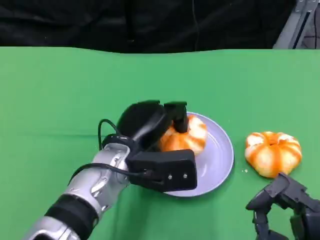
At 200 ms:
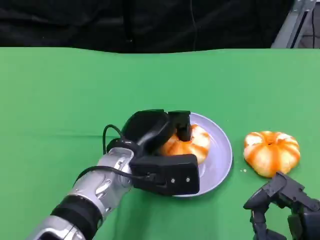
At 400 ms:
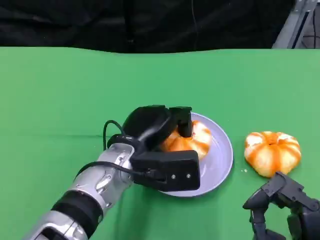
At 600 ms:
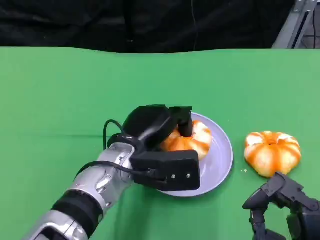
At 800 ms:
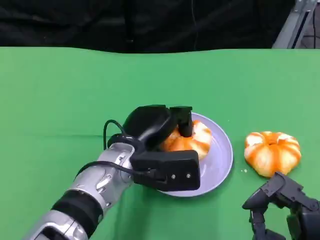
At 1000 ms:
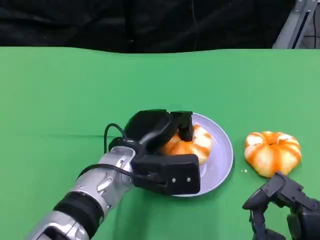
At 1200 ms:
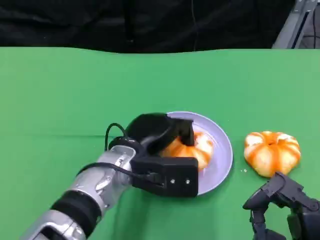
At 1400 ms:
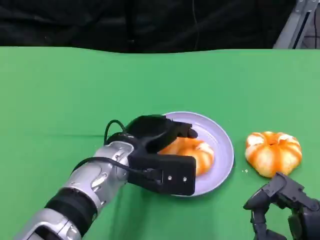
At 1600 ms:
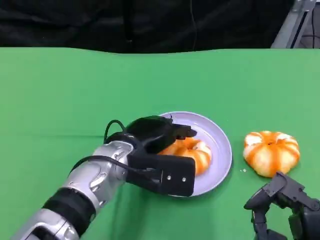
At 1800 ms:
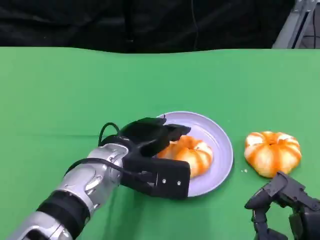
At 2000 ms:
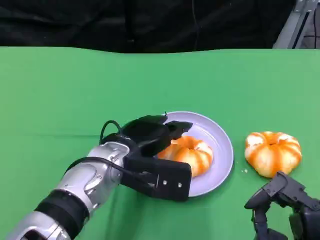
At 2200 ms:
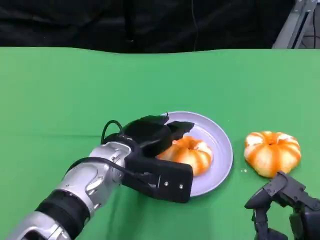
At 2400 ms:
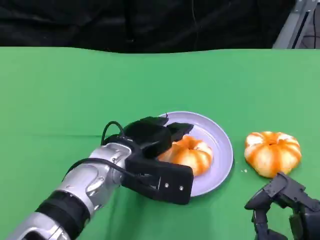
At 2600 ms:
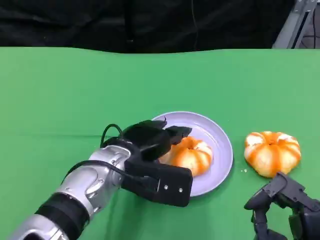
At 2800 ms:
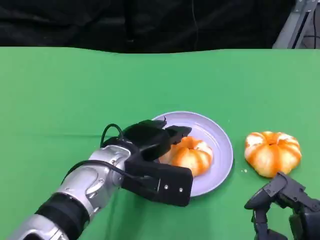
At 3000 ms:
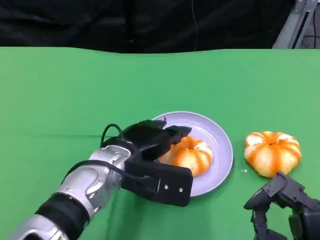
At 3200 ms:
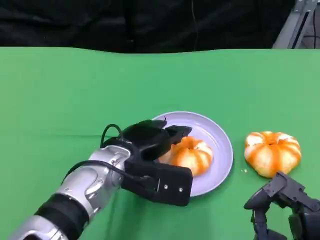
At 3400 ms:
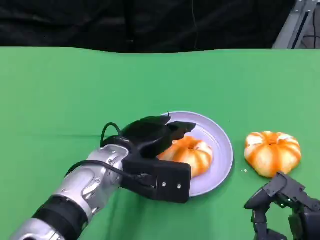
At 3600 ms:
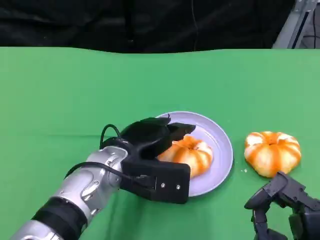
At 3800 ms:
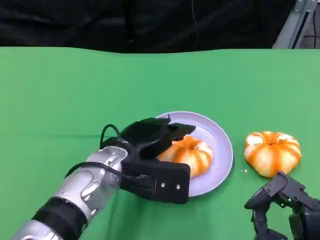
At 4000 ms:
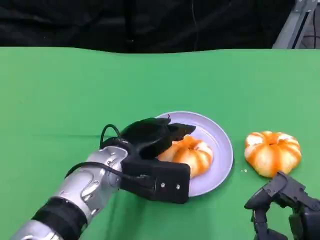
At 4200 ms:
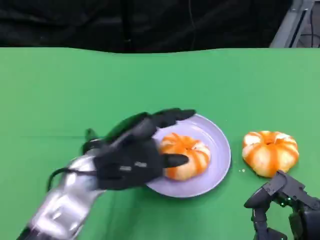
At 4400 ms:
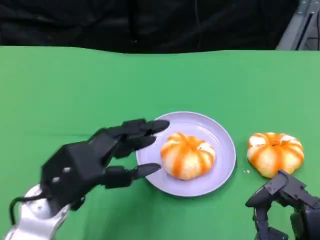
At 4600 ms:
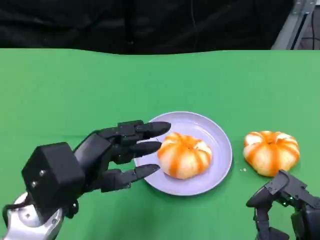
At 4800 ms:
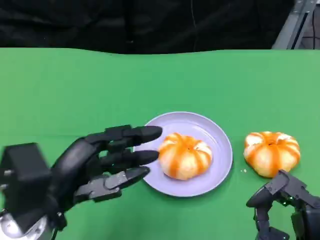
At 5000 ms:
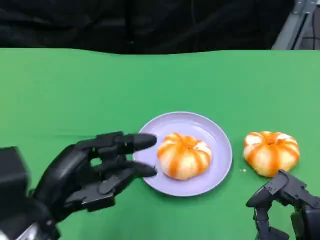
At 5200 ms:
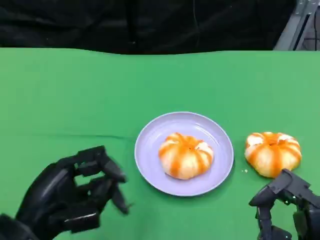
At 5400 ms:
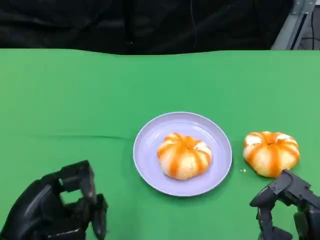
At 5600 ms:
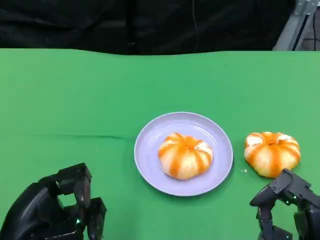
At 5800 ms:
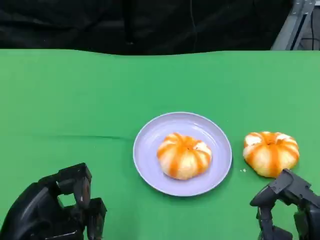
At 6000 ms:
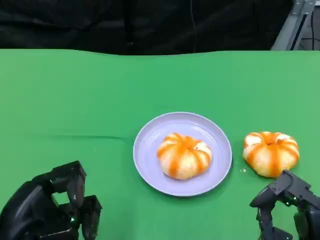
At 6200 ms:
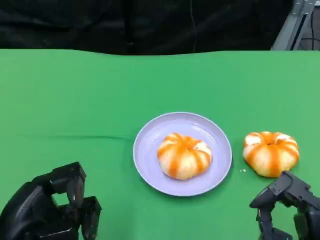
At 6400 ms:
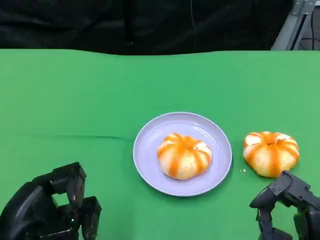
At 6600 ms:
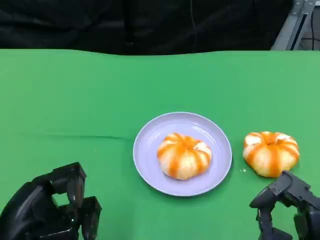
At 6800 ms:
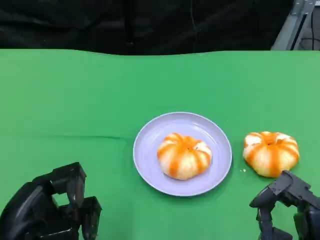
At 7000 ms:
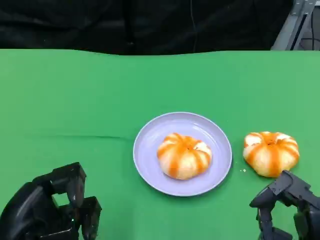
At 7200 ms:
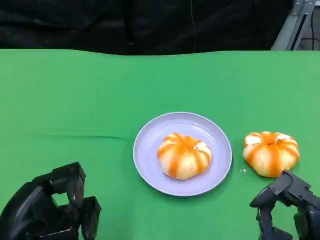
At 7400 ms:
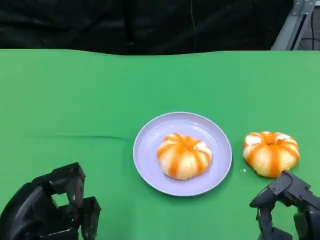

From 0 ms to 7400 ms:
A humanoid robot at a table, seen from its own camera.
Task of the whole recording: Grasp the bread from the table and place it into the plate.
From 0 ms to 1400 ms: The hands stay close to where they were, moving slightly.
From 1400 ms to 3000 ms: There are only small adjustments of the hands.
From 3000 ms to 4400 ms: The left hand heads to the left and backward, covering roughly 10 cm.
From 4400 ms to 6000 ms: The left hand shifts roughly 10 cm backward and to the left.
From 6000 ms to 7400 ms: Neither hand changes place.

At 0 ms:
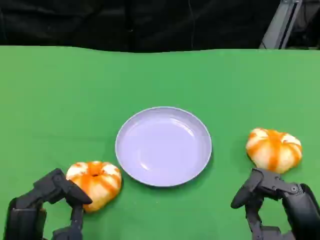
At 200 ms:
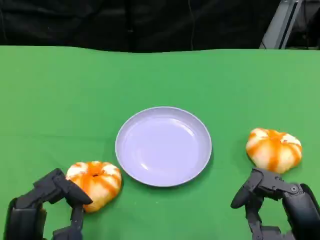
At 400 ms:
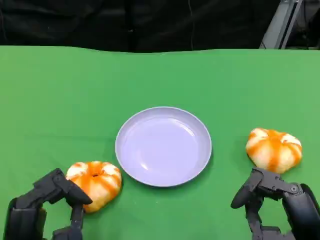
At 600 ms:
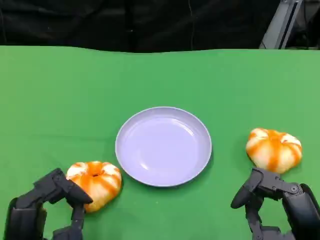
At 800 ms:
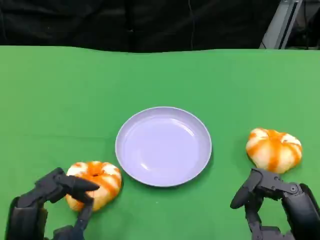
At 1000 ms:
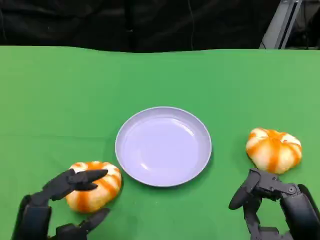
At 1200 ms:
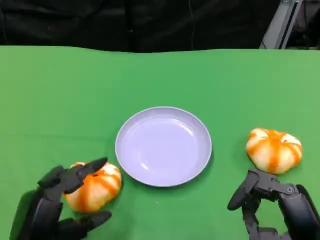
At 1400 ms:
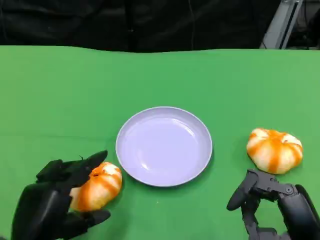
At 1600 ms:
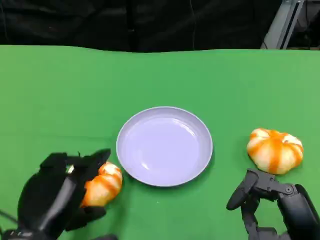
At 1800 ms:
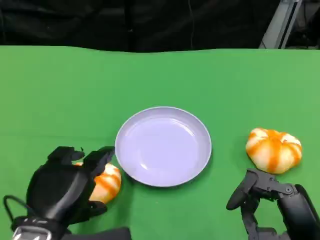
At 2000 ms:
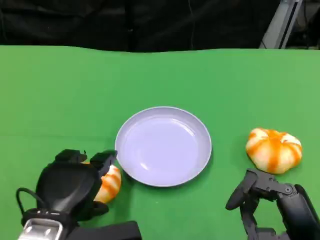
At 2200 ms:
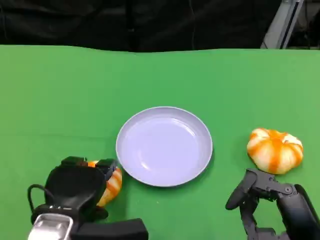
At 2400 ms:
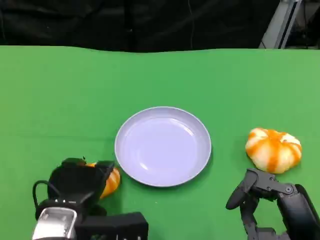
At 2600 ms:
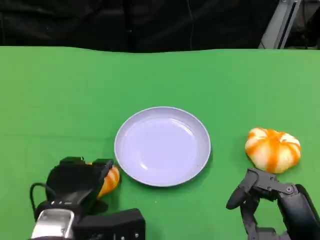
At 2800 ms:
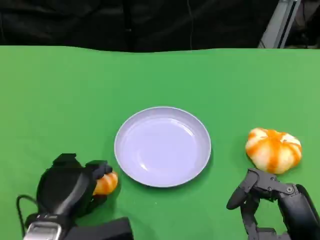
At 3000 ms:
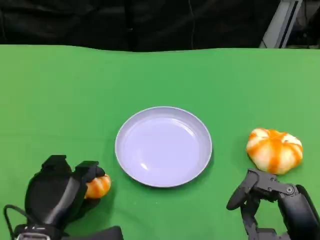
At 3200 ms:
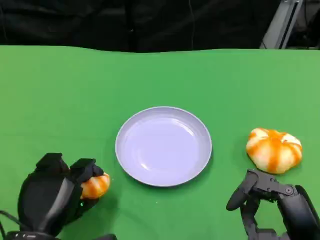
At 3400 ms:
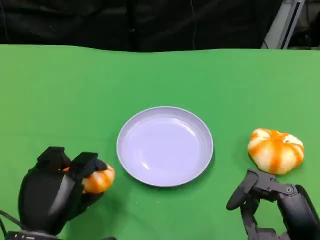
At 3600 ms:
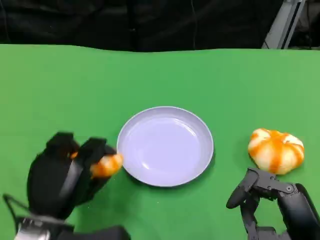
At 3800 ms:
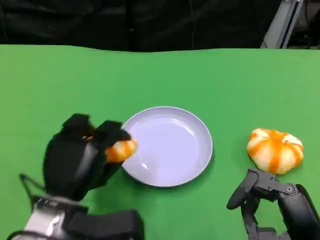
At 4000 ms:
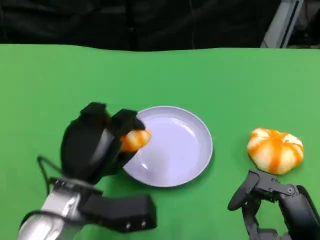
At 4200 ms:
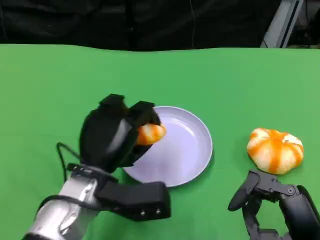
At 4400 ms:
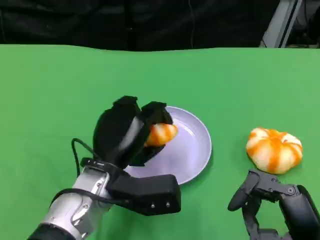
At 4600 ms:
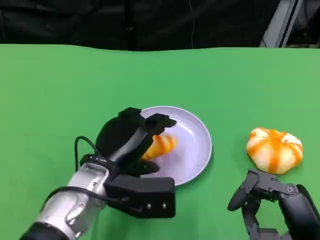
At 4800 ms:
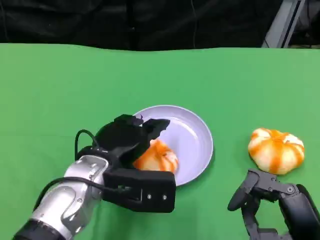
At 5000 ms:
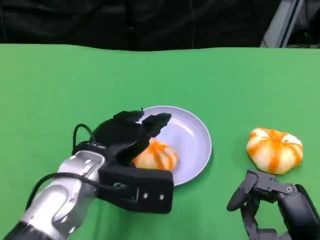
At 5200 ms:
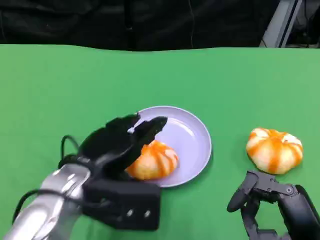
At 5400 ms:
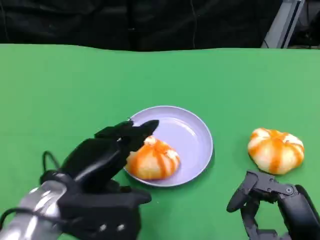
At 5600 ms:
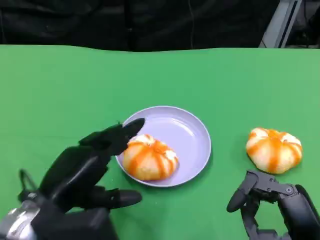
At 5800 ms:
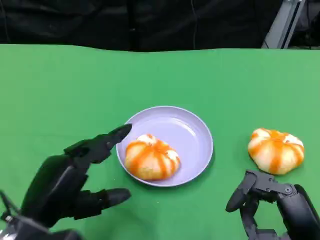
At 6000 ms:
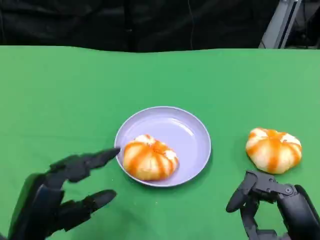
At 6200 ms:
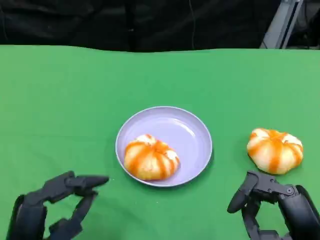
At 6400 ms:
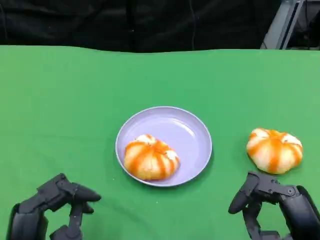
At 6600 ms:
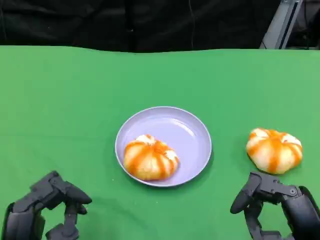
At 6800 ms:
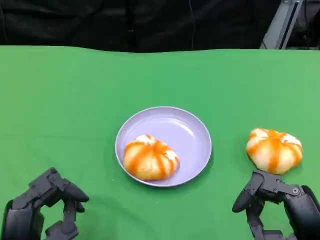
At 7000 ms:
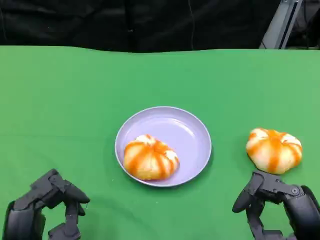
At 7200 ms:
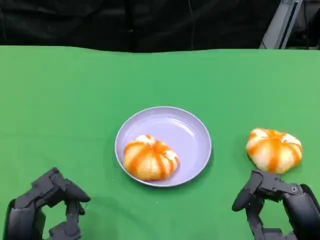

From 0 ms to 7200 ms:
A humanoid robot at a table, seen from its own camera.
Task of the whole recording: Grasp the bread from the table and place it into the plate.
From 1400 ms to 2800 ms: The left hand shifts by some 5 cm.
From 2800 ms to 4400 ms: The left hand heads to the right and forward, covering approximately 10 cm.
From 4400 ms to 5800 ms: The left hand shifts some 15 cm to the left and backward.
From 5800 ms to 7200 ms: The left hand changes place by roughly 5 cm.

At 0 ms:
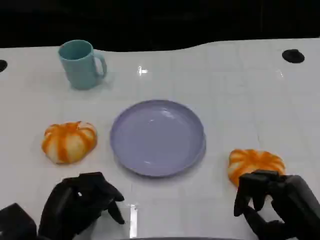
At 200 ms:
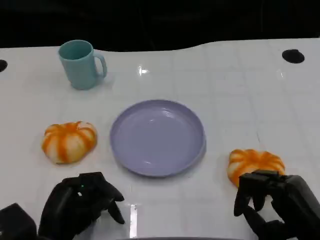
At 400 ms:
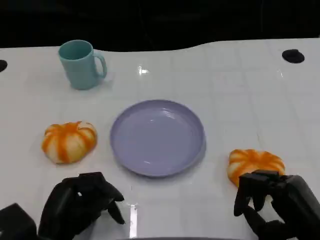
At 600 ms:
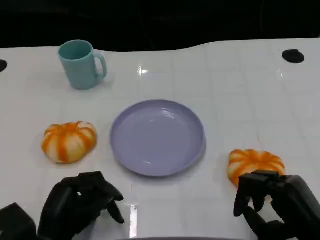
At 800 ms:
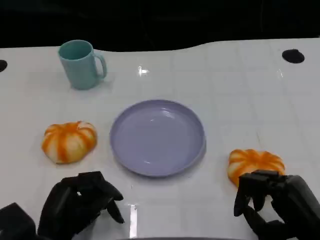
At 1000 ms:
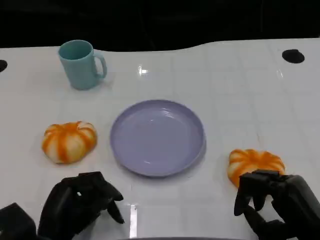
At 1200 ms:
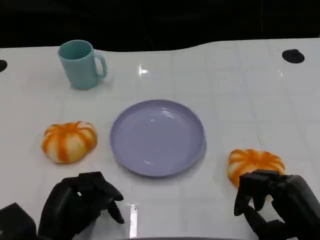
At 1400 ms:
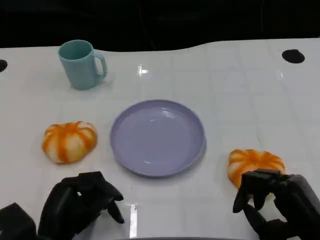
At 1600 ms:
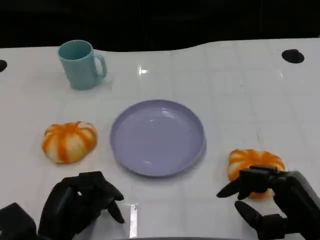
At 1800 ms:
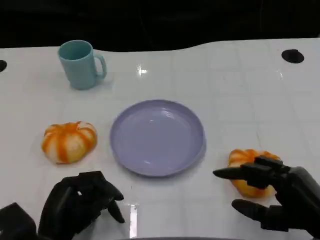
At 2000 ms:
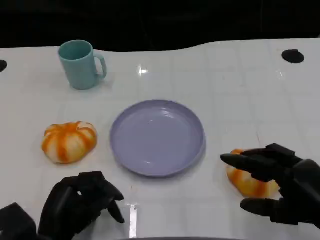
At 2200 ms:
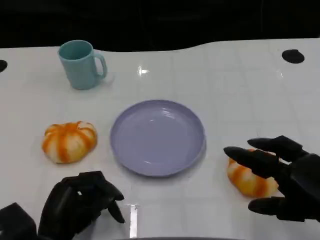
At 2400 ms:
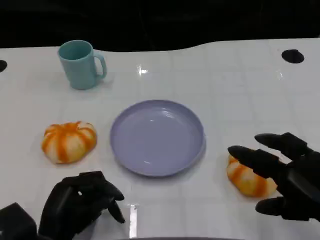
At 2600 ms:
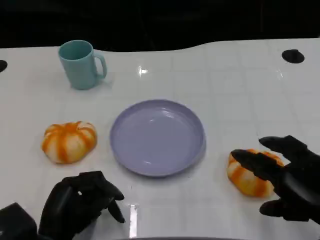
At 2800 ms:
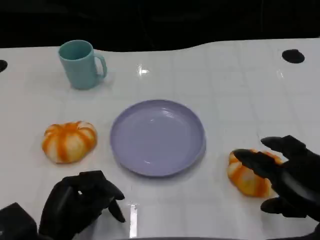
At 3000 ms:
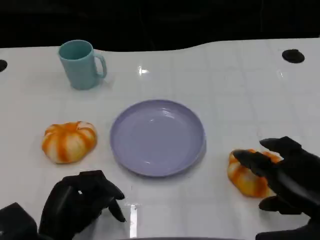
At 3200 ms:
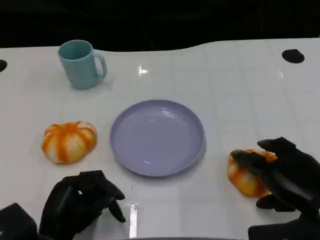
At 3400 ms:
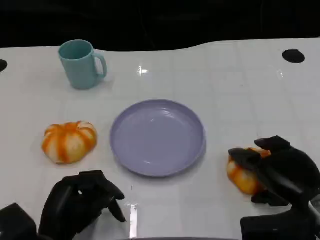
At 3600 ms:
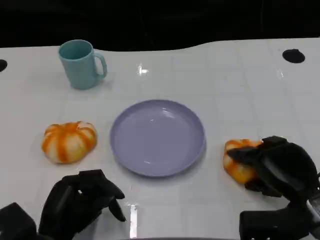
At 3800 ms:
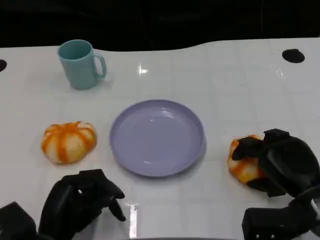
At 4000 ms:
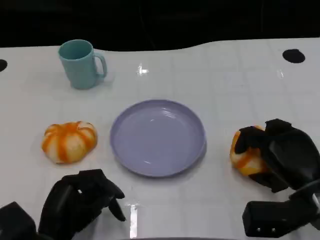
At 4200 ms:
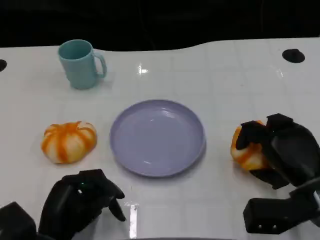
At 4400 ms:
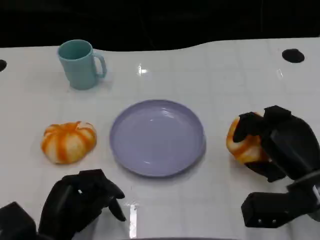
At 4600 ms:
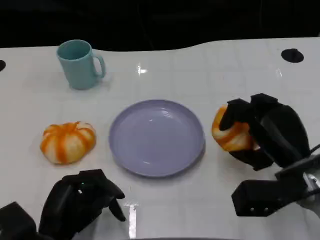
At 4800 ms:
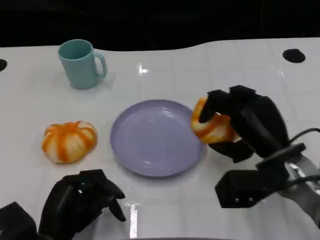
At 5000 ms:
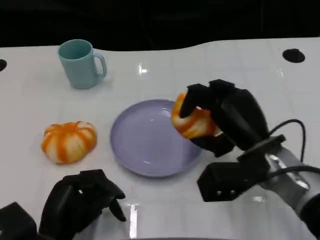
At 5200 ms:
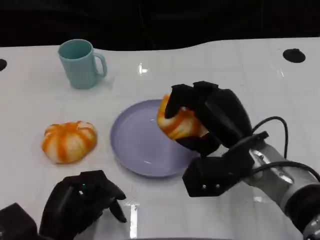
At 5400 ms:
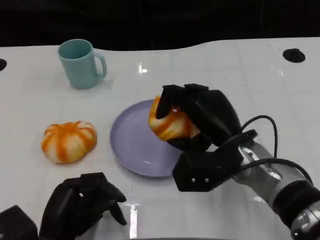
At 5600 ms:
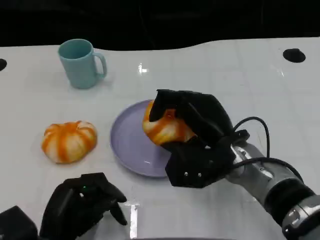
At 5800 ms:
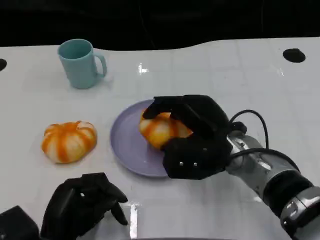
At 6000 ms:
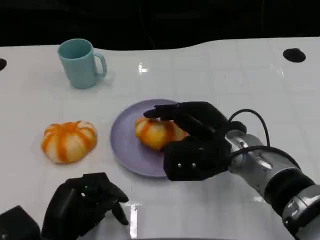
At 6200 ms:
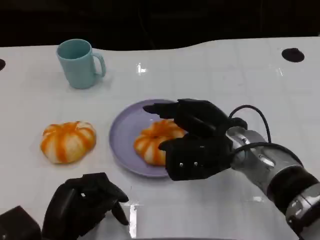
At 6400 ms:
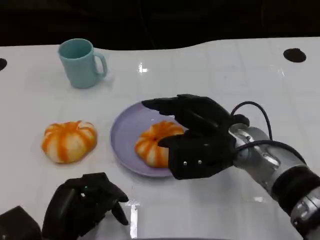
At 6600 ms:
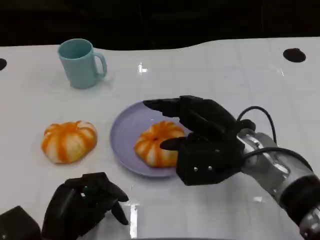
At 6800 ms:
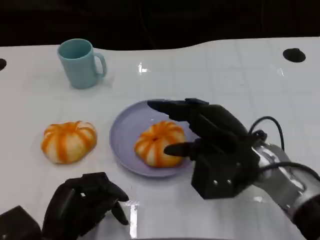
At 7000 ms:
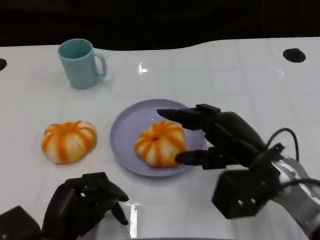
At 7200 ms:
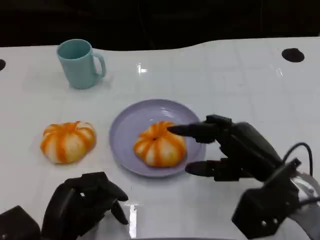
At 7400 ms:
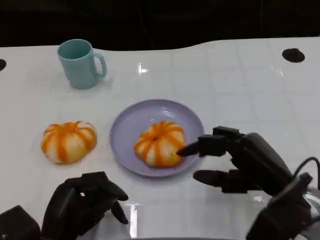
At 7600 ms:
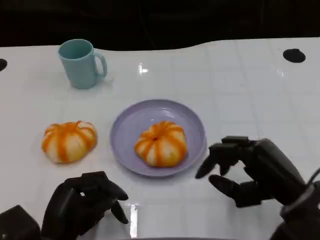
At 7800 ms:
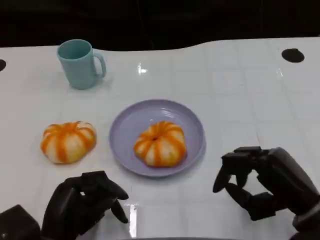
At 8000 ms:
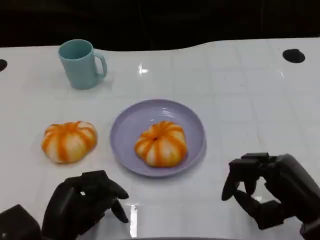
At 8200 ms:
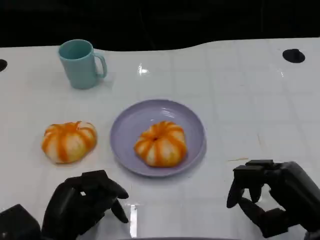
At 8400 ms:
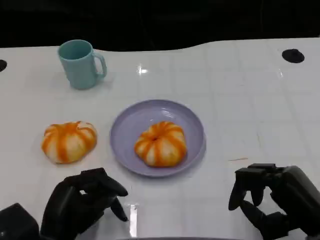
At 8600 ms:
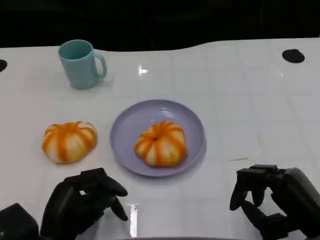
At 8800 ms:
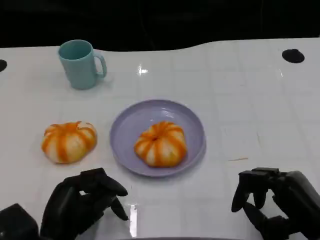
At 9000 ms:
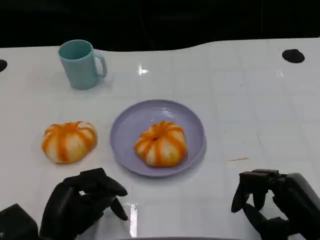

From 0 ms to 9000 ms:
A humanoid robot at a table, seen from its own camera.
Task of the whole recording: Grasp the bread from the table and place it into the plate.
From 0 ms to 1600 ms: The hands make only small movements.
From 3000 ms to 4400 ms: The right hand is displaced forward by some 5 cm.
From 4400 ms to 6000 ms: The right hand is displaced to the left by roughly 10 cm.
From 6000 ms to 7600 ms: The right hand heads to the right and backward, covering roughly 15 cm.
From 7600 ms to 9000 ms: The right hand shifts by about 5 cm.
